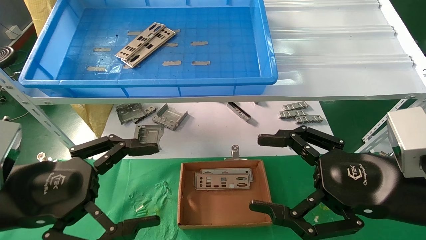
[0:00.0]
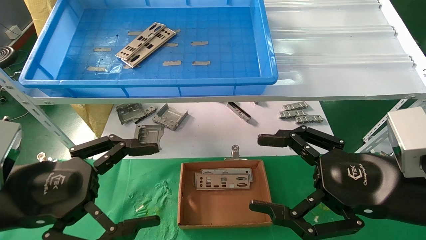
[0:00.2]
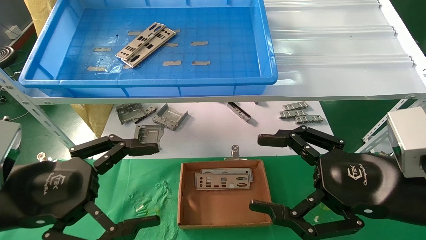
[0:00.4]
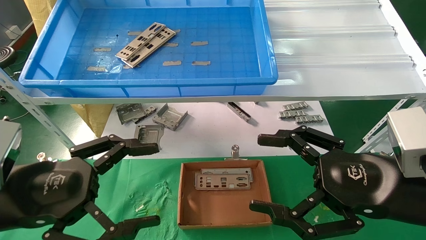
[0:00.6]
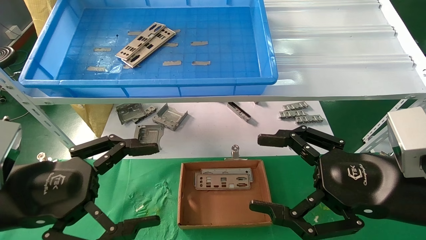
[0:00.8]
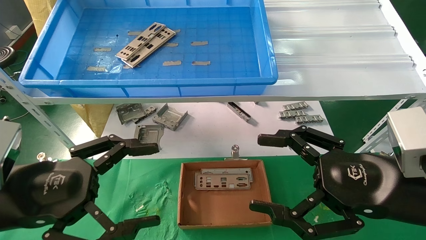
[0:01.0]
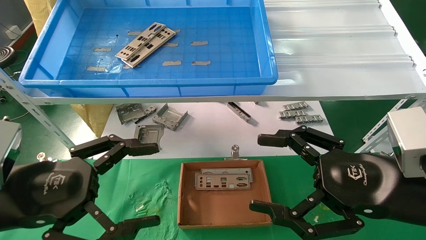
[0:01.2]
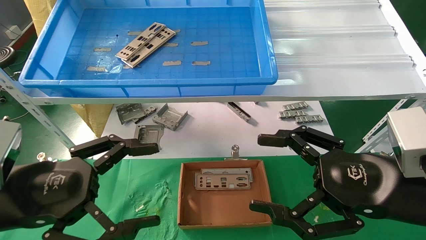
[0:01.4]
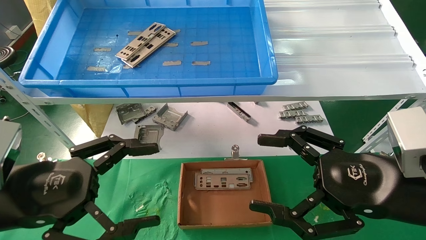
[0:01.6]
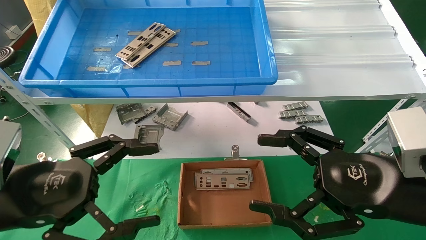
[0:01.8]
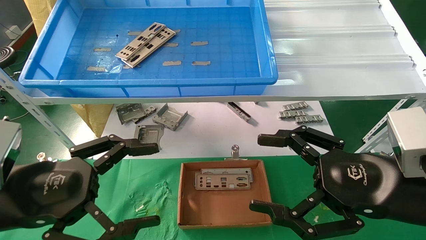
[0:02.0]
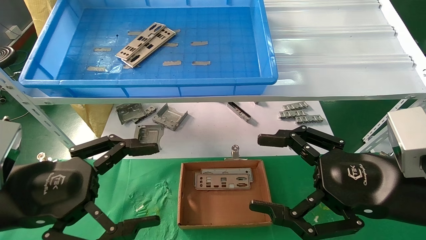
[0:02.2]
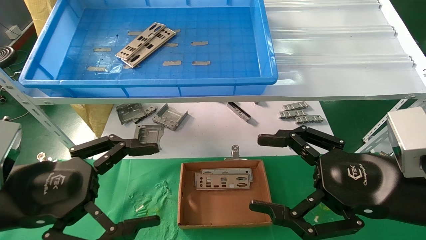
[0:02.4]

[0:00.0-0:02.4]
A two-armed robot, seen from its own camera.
Task of the whole recording: pick up the parts on the tray and put them in the cardboard box.
0:00.0 to 0:02.4: The two grippers keep their place.
